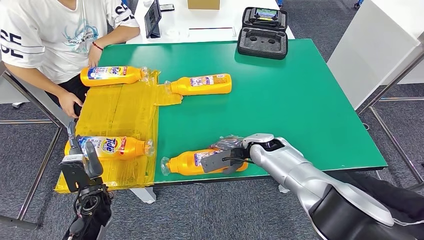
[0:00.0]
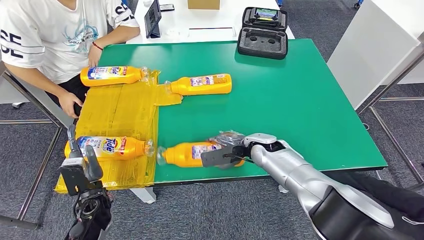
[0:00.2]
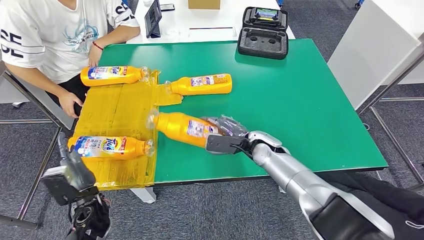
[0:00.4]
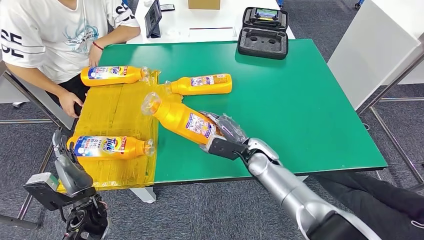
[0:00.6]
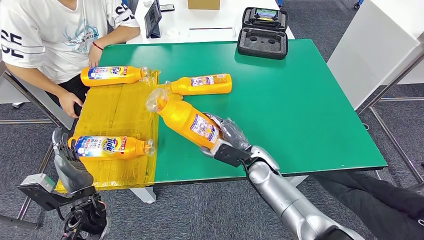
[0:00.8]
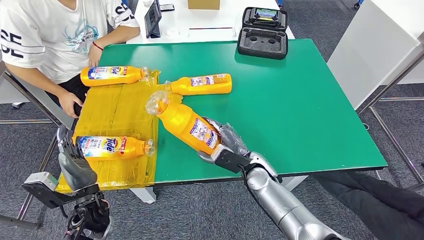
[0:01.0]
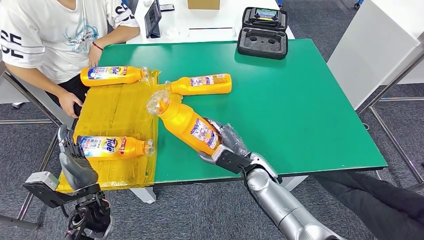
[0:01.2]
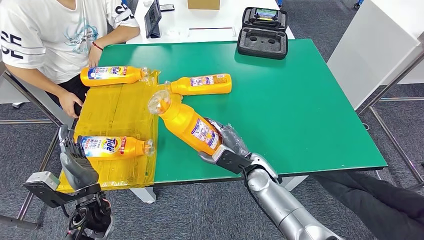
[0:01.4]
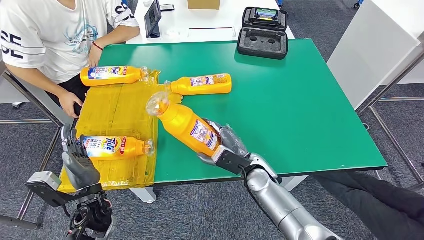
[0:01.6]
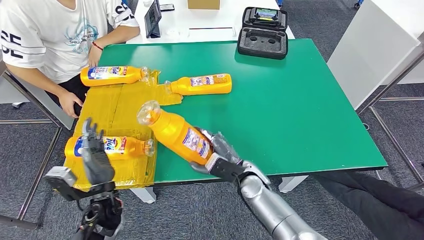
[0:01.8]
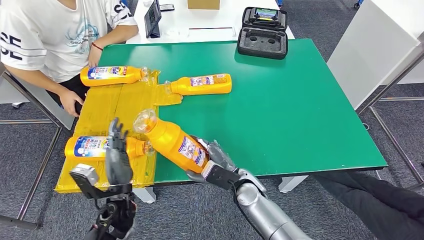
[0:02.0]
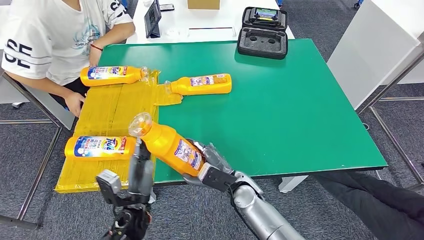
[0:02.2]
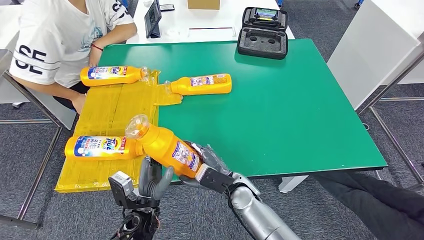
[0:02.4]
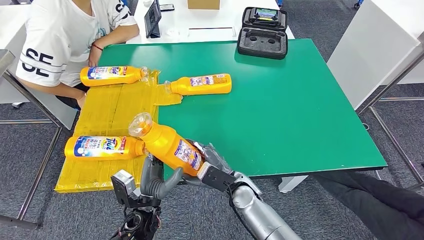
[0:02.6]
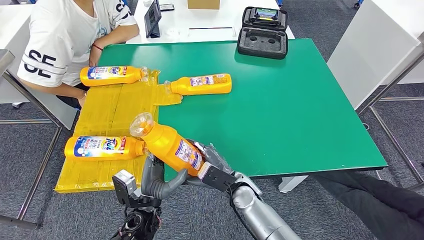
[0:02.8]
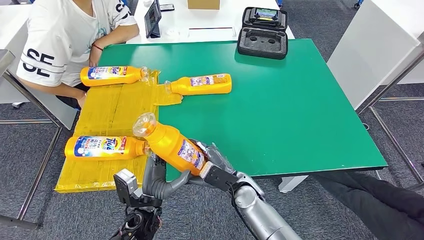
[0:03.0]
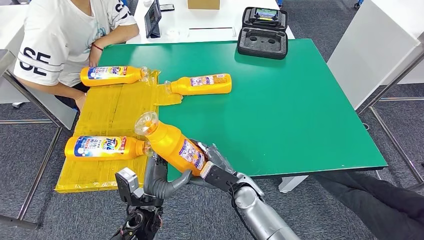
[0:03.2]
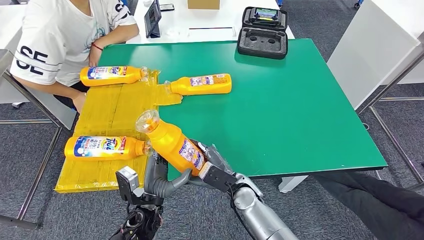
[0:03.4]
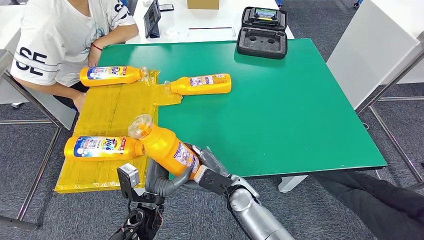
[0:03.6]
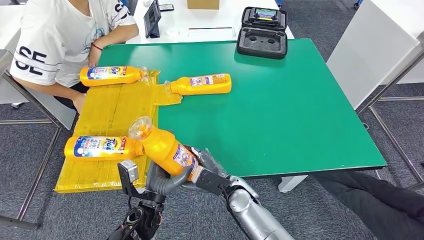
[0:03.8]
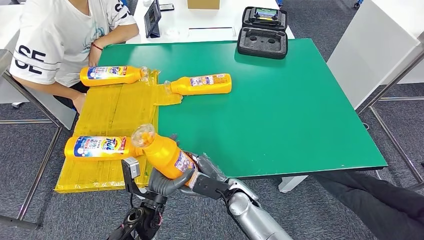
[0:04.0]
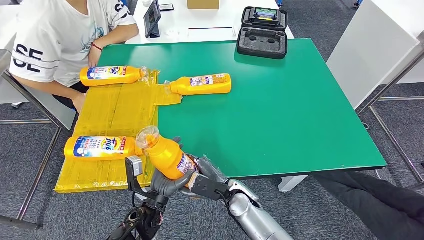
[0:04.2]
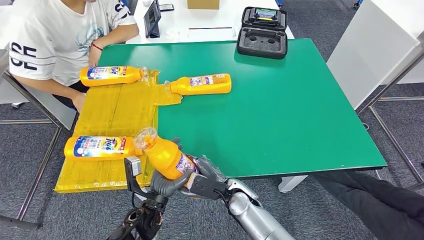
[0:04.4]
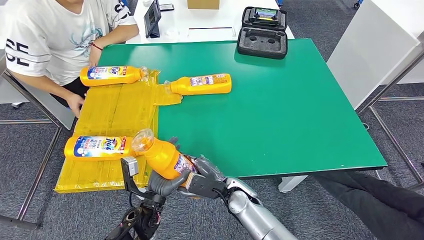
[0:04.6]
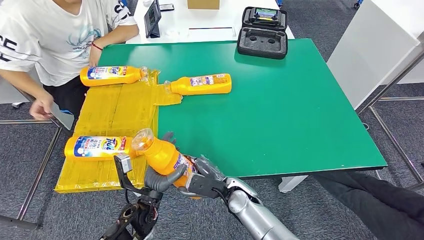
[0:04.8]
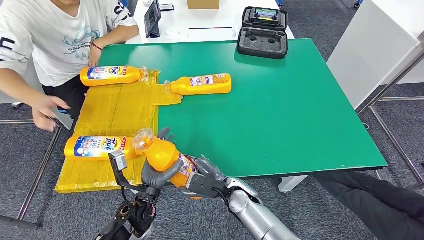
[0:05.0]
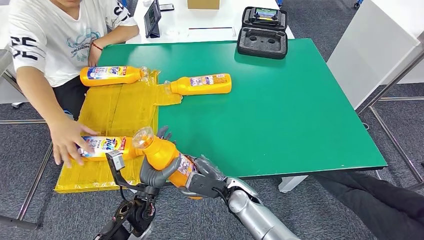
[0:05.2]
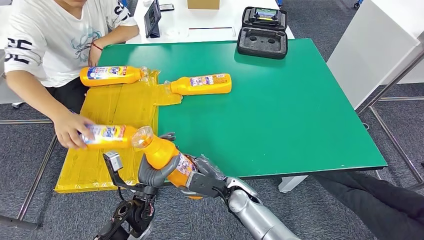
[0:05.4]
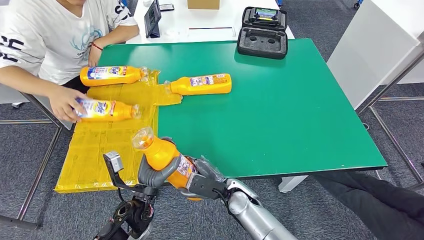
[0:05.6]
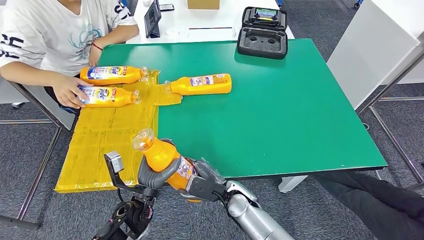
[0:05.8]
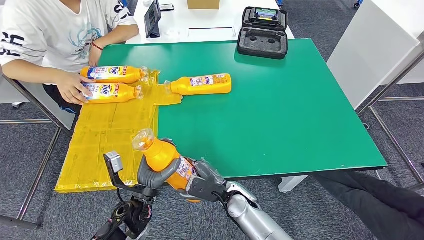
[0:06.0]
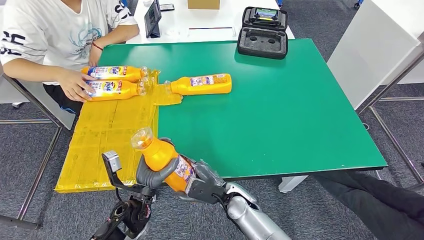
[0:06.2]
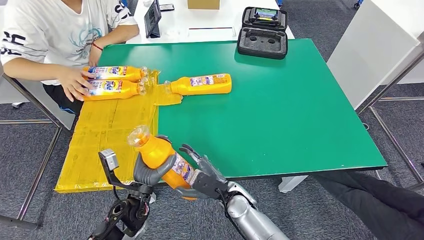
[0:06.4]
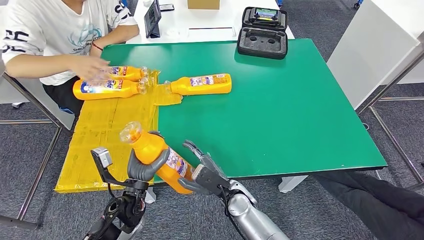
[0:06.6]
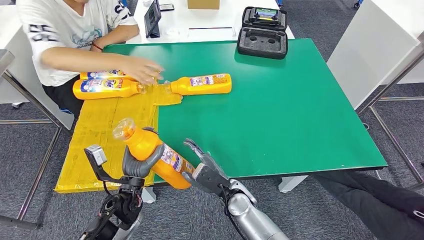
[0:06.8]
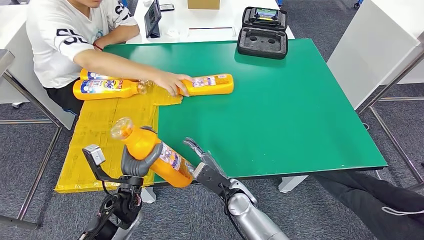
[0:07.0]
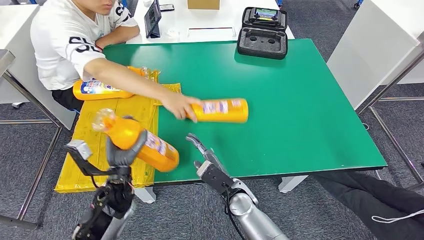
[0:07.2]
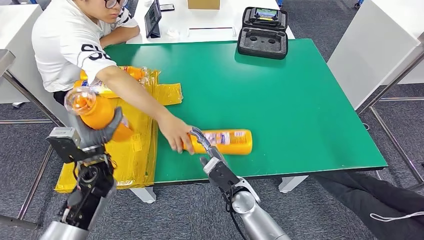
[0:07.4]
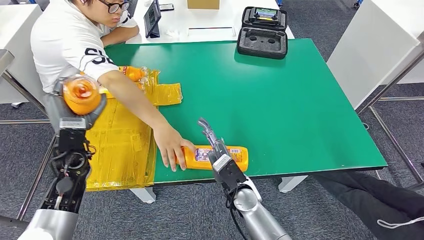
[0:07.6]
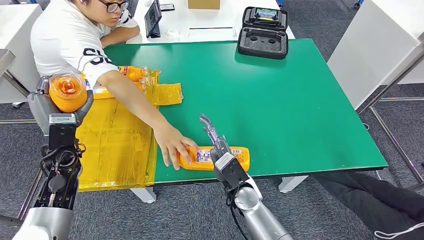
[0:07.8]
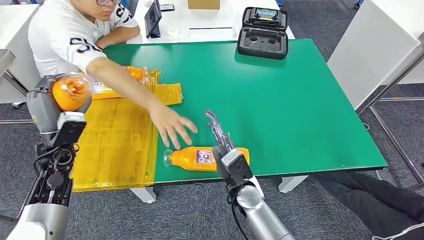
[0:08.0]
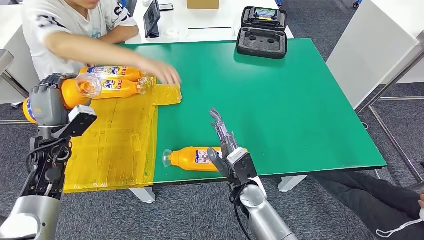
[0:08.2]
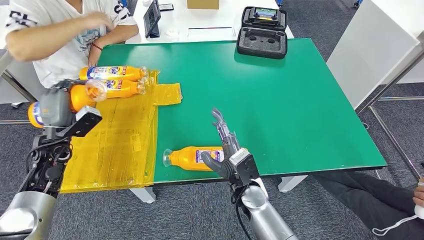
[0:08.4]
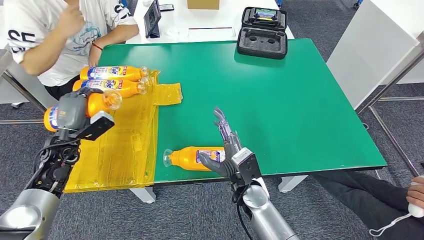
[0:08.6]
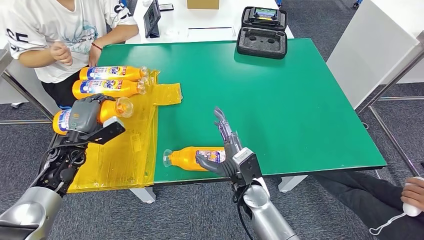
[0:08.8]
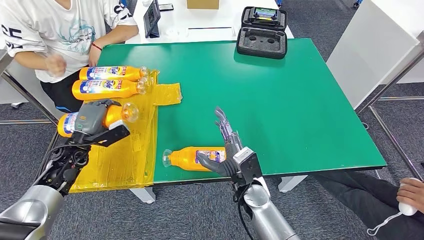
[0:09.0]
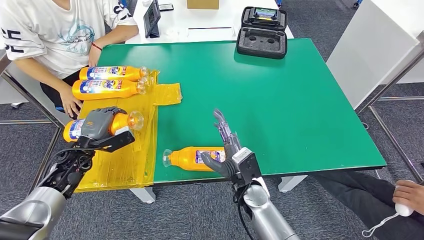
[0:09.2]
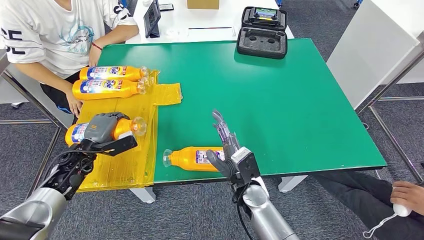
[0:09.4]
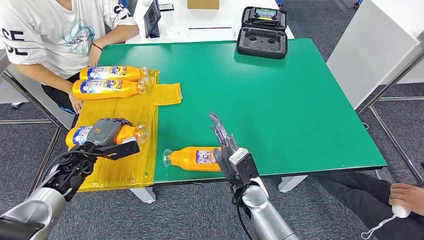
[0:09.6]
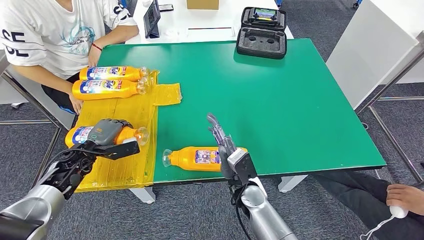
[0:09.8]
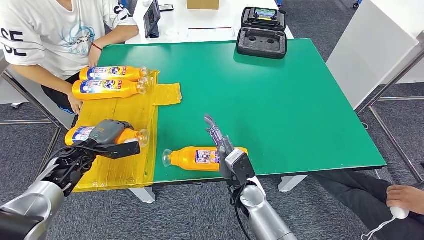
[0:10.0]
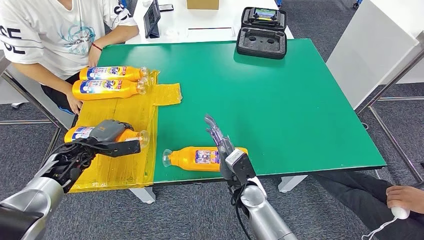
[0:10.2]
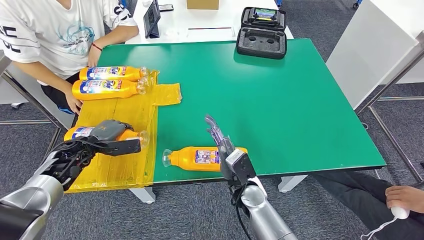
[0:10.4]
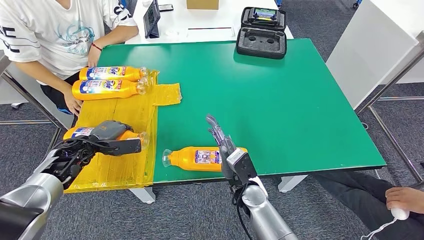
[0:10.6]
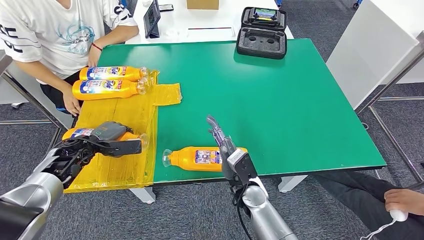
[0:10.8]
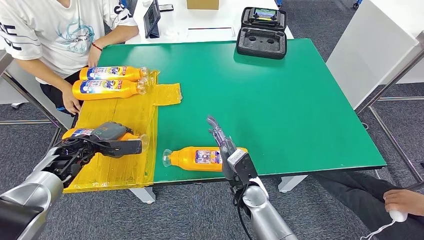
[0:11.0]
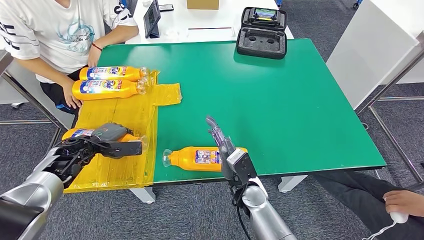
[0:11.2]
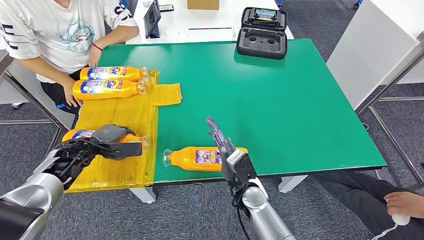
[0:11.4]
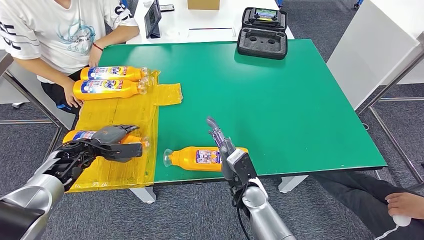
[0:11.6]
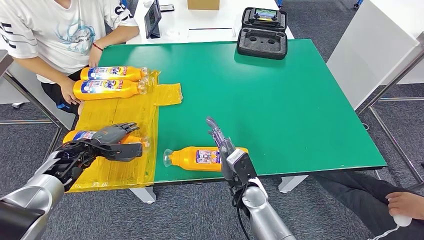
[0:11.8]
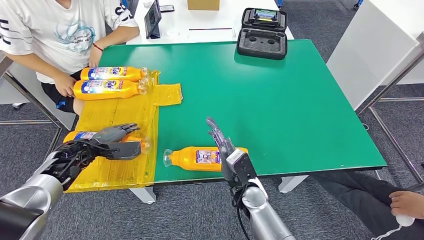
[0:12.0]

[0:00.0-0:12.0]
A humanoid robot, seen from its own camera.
0:00.0 to 0:01.6: The right hand travels backward by some 5 cm.
0:04.4 to 0:06.0: The hands stay close to where they were, moving slightly.
0:10.4 to 0:12.0: The hands stay close to where they were, moving slightly.

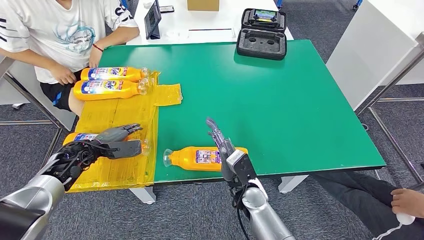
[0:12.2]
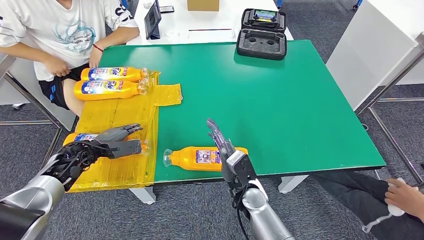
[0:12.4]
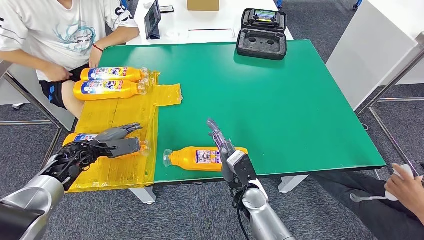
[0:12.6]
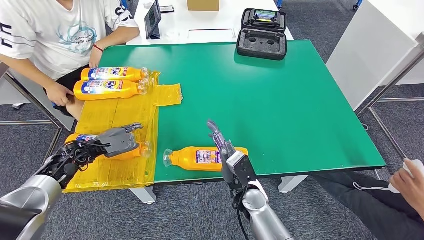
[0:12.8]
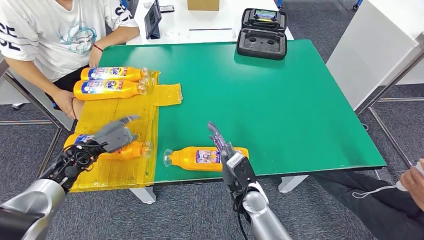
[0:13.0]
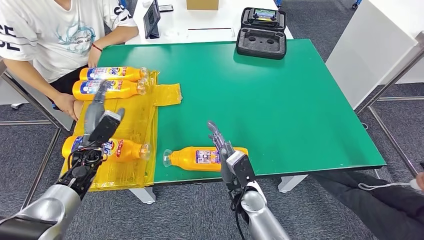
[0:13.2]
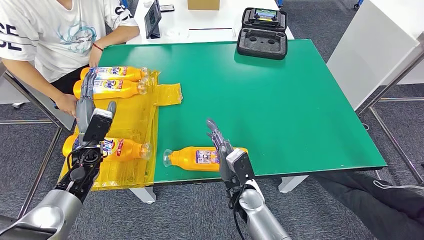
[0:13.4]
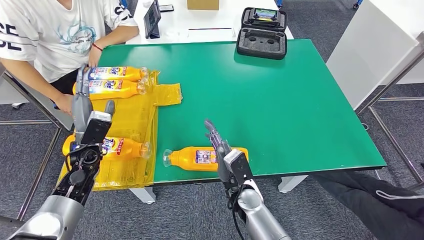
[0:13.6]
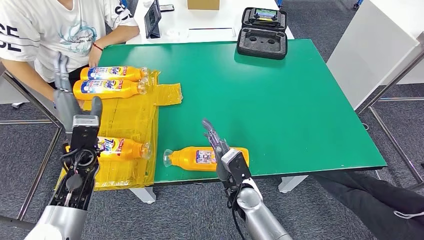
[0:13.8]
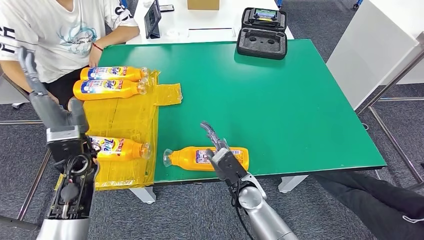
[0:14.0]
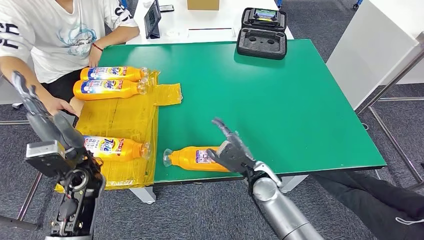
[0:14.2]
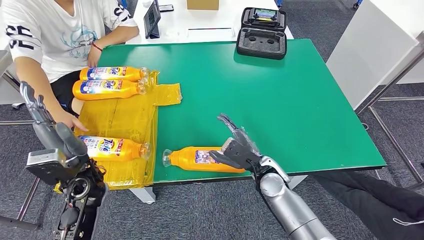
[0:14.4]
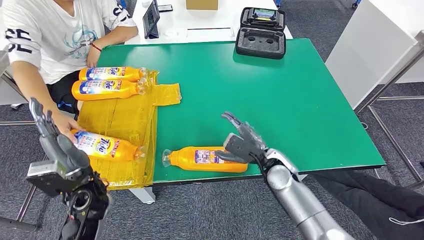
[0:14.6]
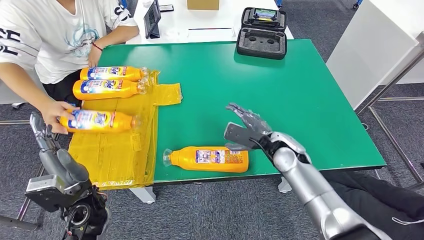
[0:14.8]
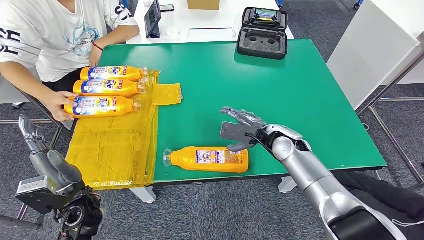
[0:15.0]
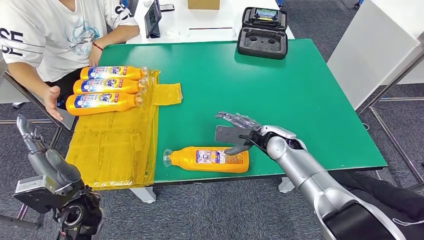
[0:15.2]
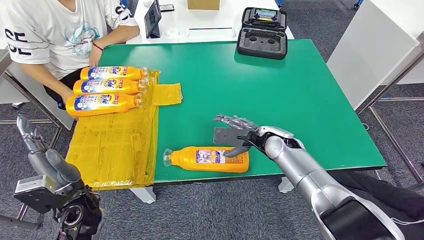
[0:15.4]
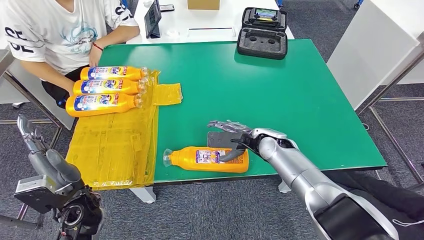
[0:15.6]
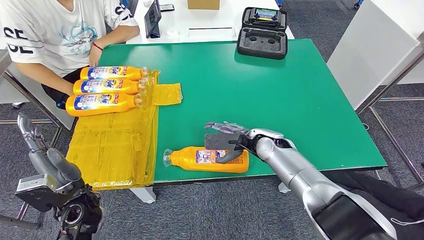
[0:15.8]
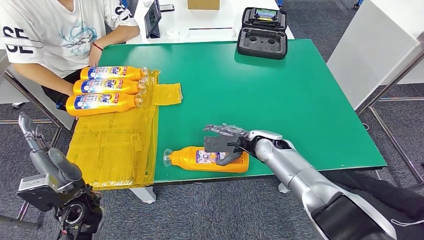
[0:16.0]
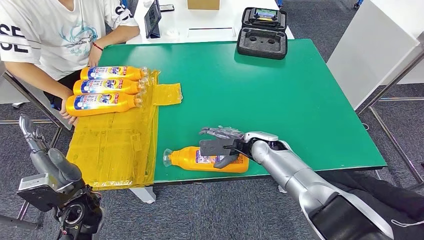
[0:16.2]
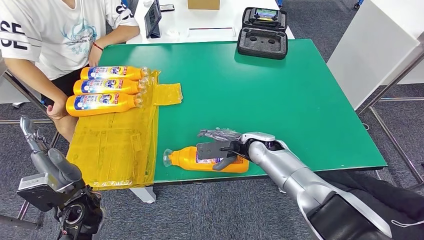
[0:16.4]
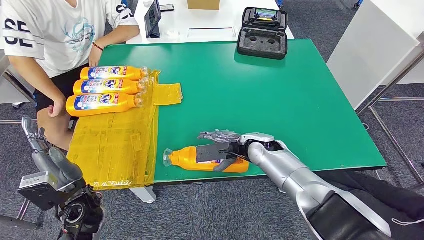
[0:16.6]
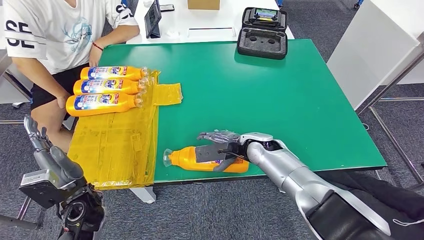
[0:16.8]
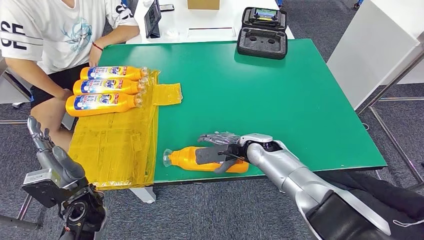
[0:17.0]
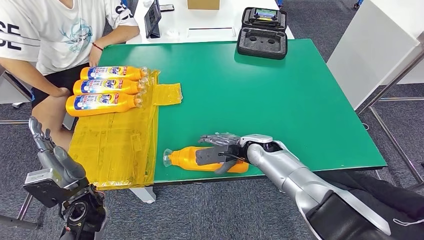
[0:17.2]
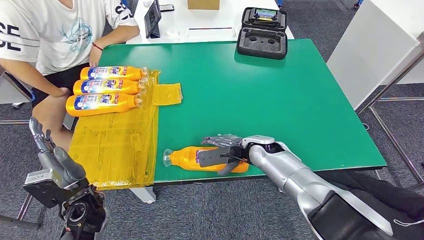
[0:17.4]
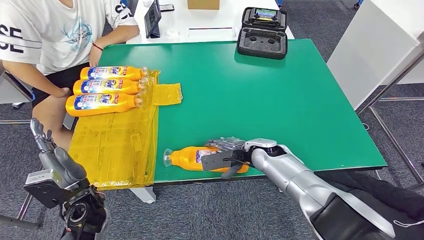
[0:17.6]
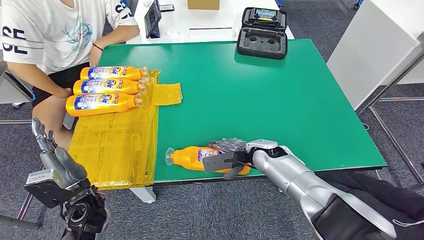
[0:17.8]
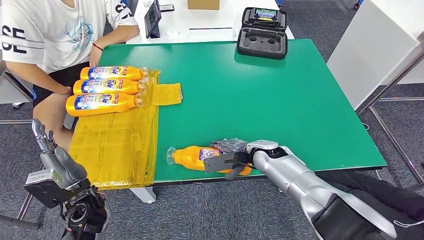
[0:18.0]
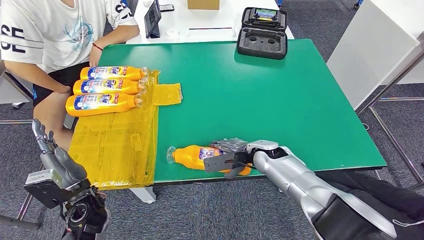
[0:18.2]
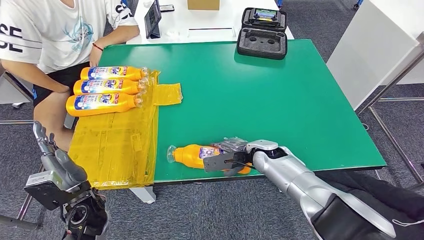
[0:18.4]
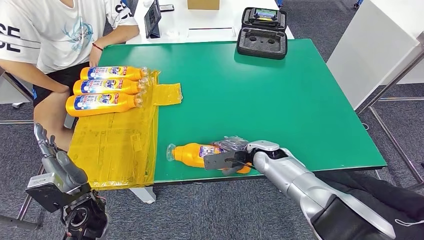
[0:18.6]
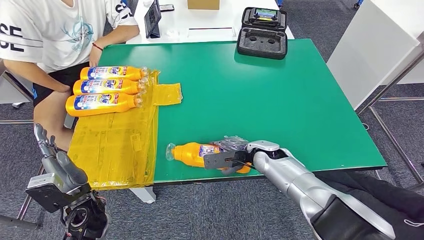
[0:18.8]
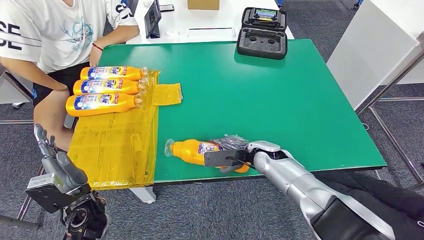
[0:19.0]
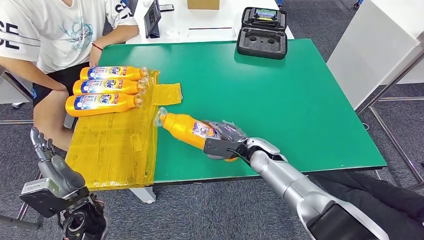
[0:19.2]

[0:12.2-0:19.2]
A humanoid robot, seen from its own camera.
0:12.2 to 0:13.6: The left hand goes some 5 cm to the right.
0:15.0 to 0:16.4: The right hand travels to the left by roughly 5 cm.
0:16.4 to 0:17.8: The hands make only small movements.
